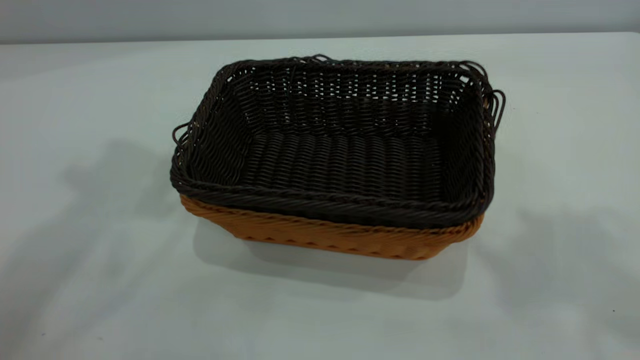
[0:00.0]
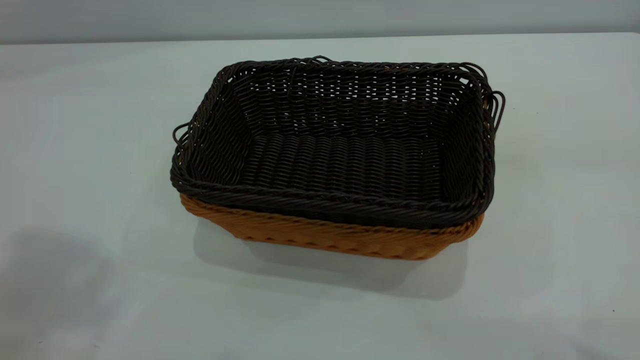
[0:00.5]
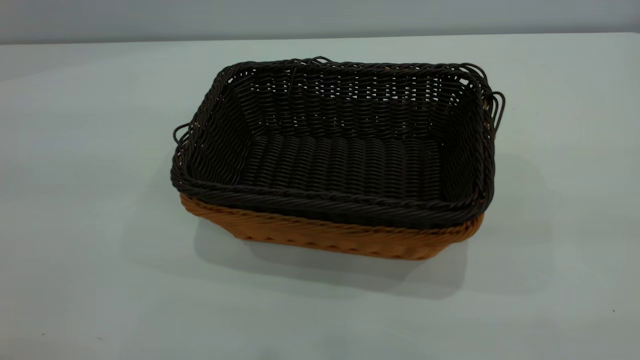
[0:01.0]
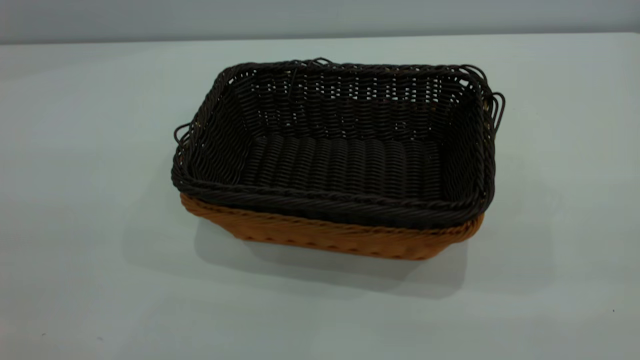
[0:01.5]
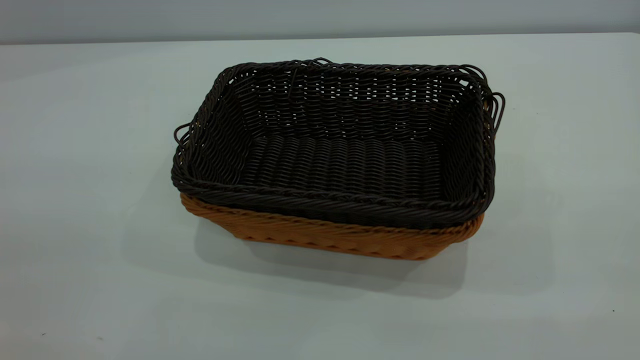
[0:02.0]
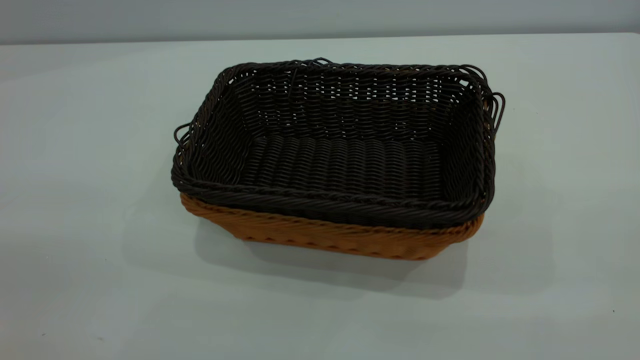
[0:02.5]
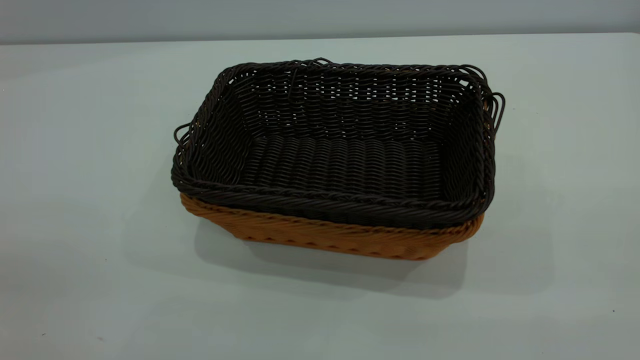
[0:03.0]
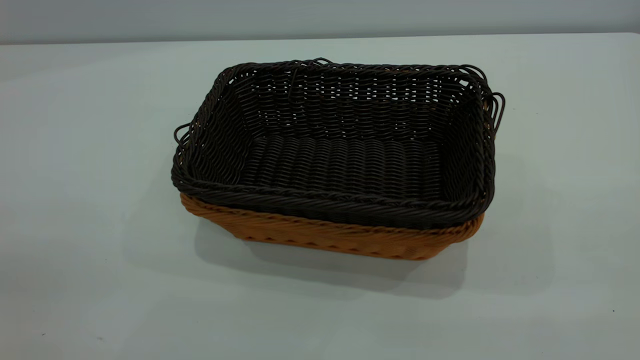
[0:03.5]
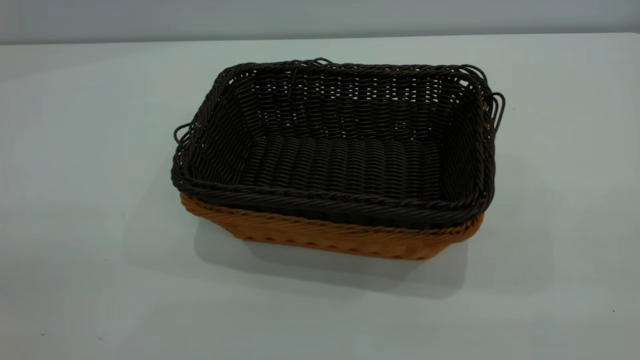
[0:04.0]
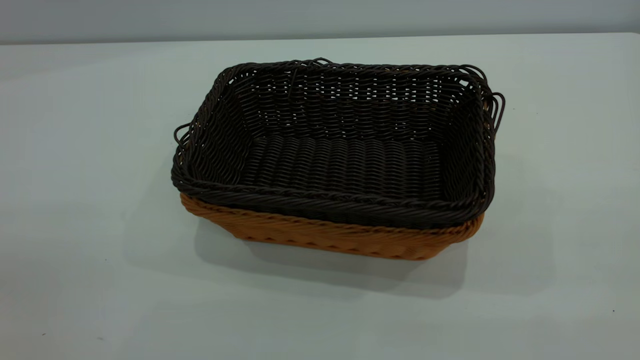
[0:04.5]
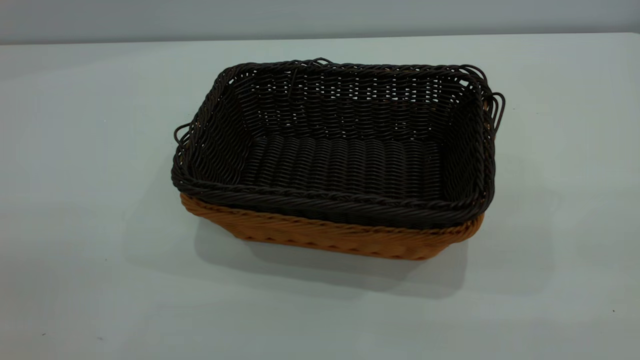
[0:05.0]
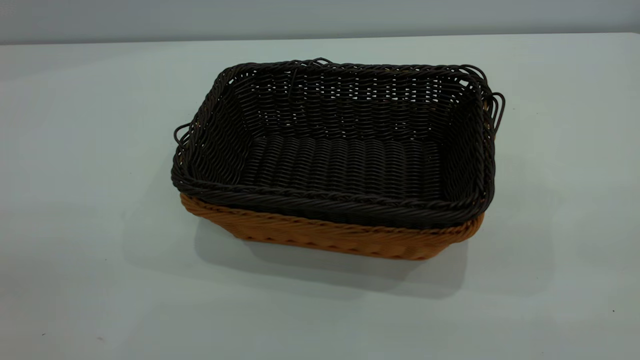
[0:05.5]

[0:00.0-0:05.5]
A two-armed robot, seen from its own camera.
Task of the whole recording: the left gripper grasp the brown basket and place it in the center of the table, the right gripper grasp the black basket and place it inside the brown one.
0:00.0 to 0:02.0: Both grippers move backward and downward, some 30 cm.
